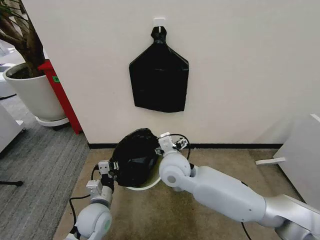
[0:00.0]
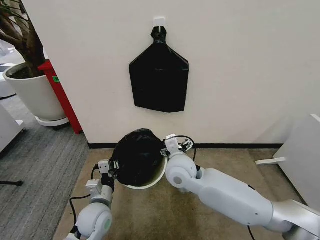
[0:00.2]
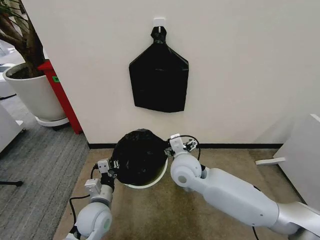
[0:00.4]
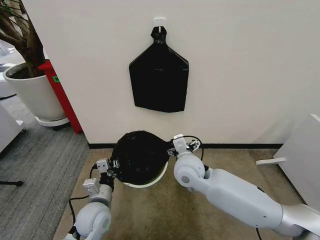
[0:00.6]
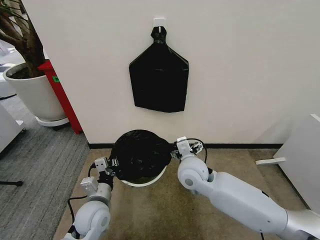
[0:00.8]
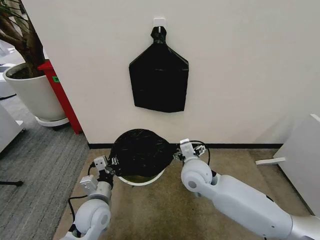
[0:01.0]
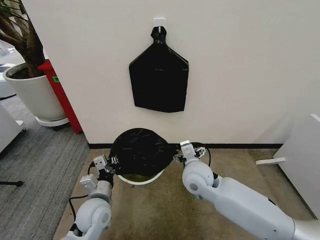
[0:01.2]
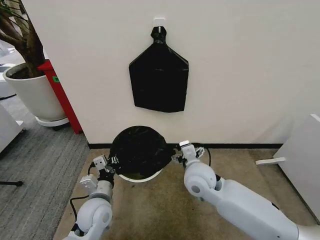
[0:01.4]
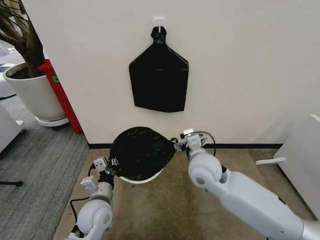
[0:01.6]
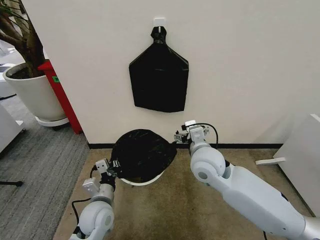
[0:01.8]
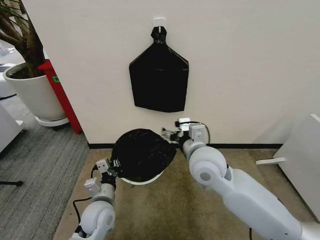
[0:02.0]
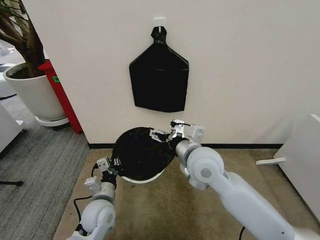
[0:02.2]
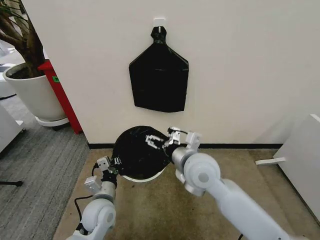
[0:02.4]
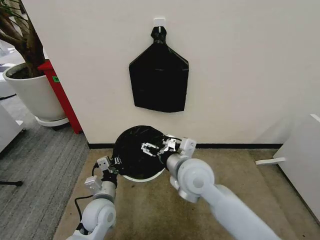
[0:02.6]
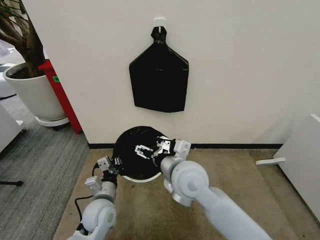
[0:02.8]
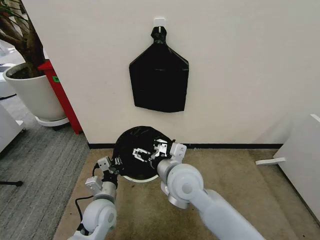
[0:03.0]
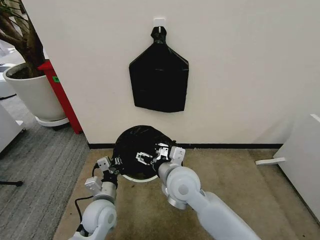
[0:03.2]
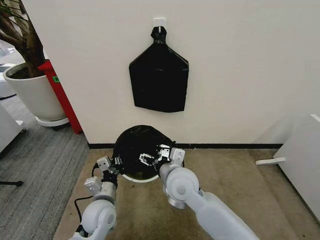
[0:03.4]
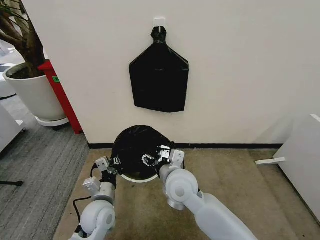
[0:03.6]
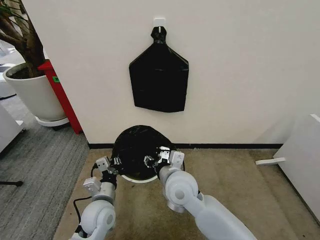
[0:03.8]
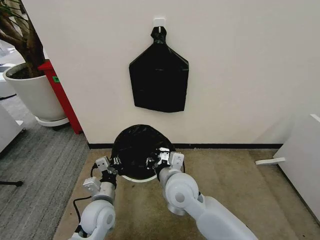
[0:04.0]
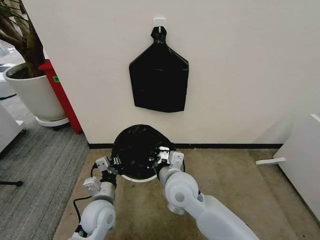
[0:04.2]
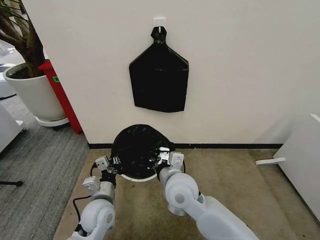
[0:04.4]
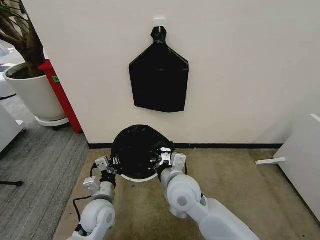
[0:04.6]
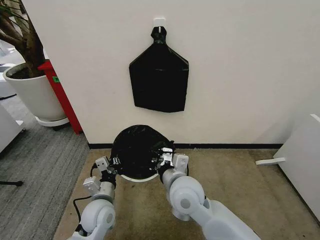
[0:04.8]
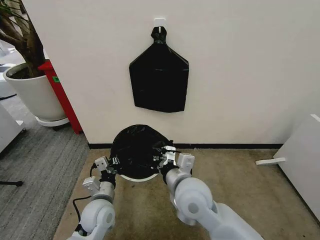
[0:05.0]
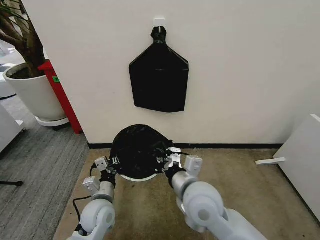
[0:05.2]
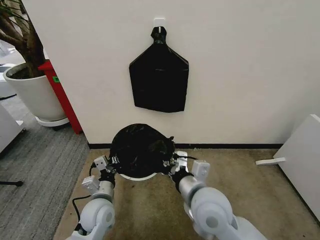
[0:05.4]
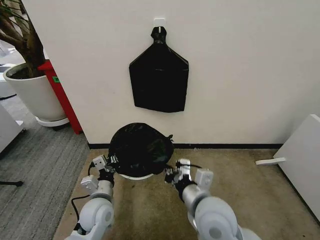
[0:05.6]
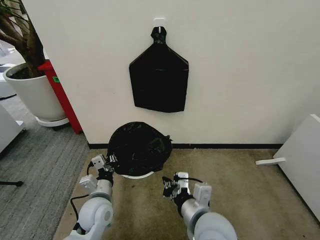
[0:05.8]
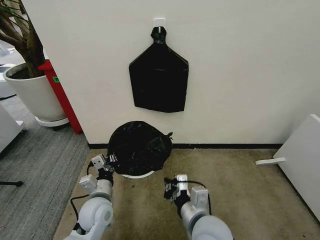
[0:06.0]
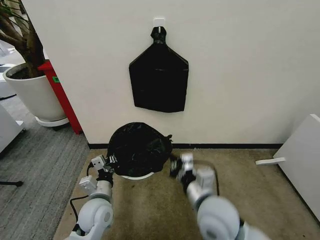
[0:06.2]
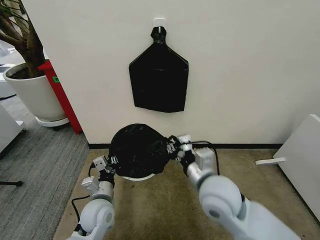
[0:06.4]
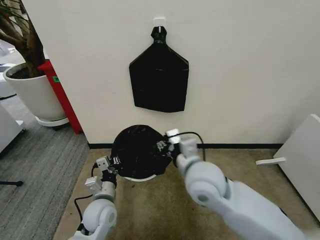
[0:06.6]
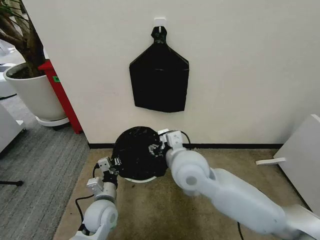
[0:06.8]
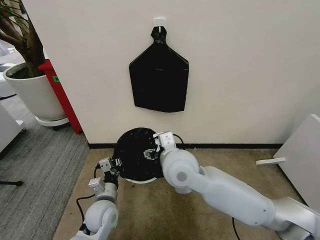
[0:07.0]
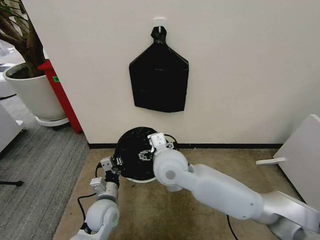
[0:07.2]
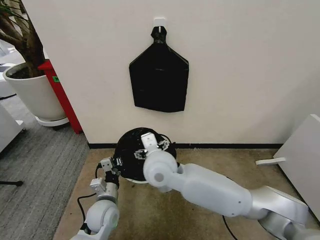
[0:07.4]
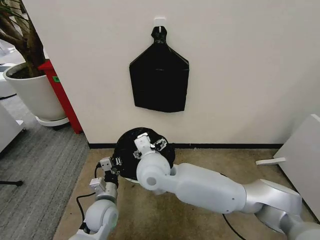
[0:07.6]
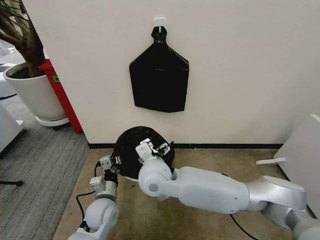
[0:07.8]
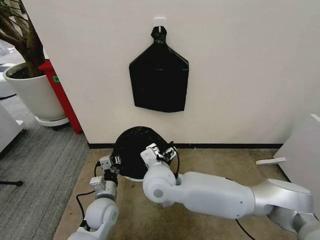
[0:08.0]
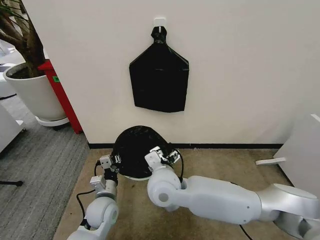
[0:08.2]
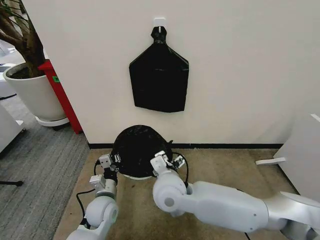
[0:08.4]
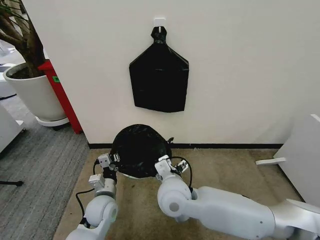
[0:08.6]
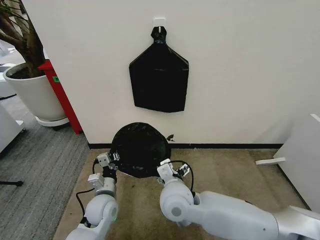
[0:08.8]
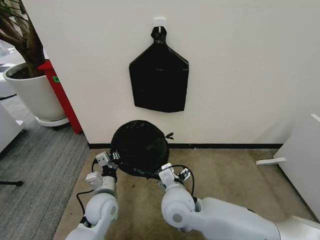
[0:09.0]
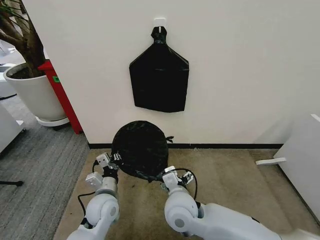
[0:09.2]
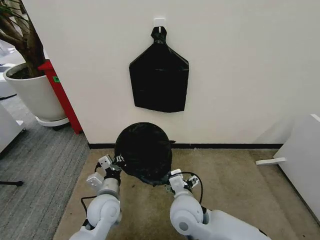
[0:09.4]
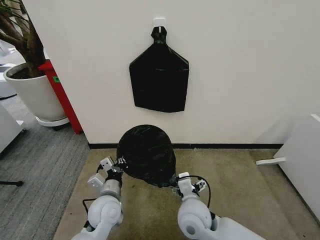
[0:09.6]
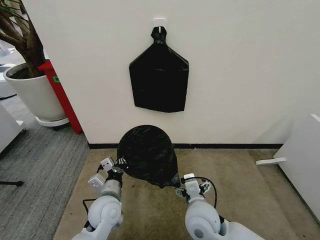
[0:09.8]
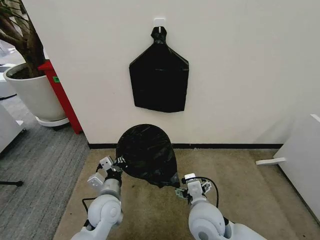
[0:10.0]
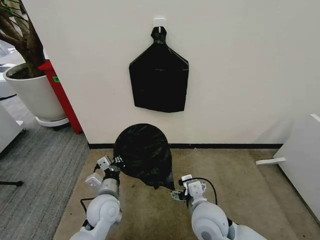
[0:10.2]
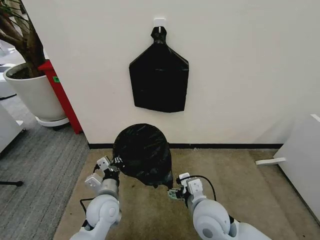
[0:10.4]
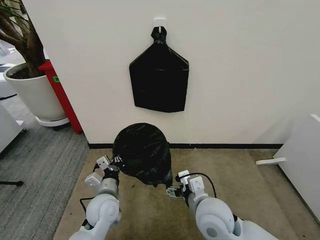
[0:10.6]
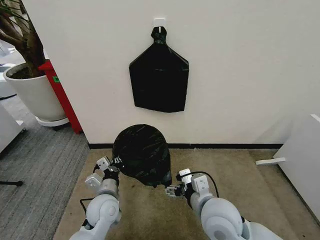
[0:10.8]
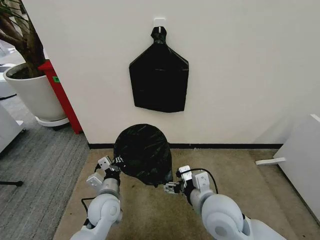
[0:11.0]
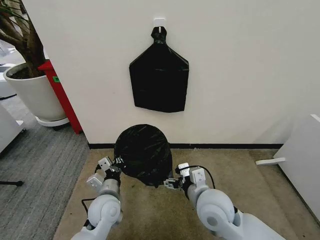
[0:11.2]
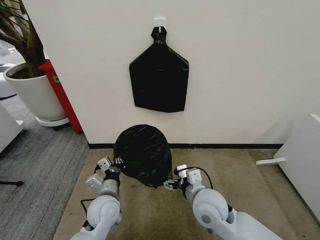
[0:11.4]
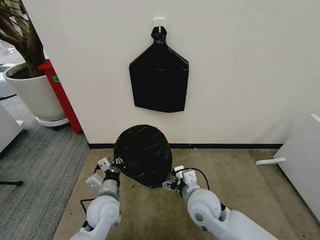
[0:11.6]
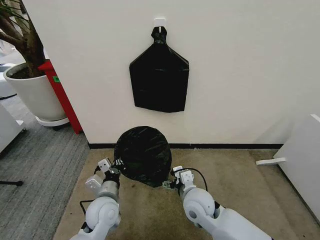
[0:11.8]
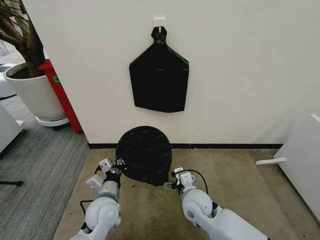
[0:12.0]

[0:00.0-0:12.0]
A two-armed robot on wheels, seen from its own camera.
Task of the whole recording: Place the garbage bag over the trash bin.
0:00.0 to 0:01.6: The right gripper heads to the right, covering about 10 cm.
0:01.6 to 0:03.0: The right gripper is displaced to the left by some 5 cm.
0:03.0 to 0:04.4: The right gripper closes up.
0:04.4 to 0:06.0: The right gripper travels backward and to the right by approximately 15 cm.
0:06.0 to 0:07.6: The right gripper is displaced forward, to the left and upward by about 20 cm, and opens.
0:07.6 to 0:09.0: The right gripper moves downward, to the right and backward, about 10 cm.
0:09.0 to 0:10.4: The right gripper goes roughly 10 cm to the right.
0:10.4 to 0:12.0: The right gripper goes about 10 cm downward and forward.

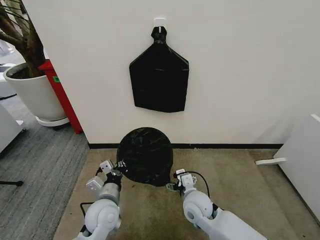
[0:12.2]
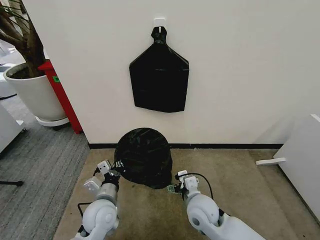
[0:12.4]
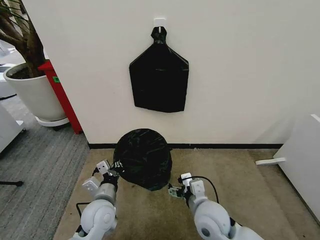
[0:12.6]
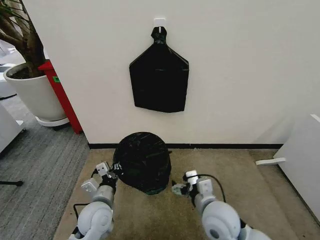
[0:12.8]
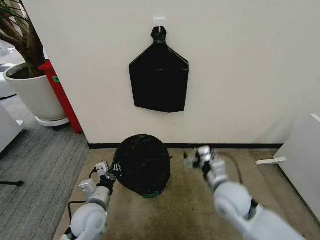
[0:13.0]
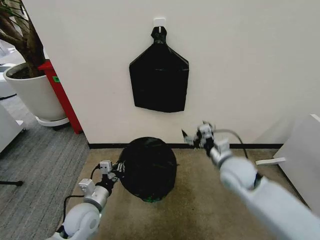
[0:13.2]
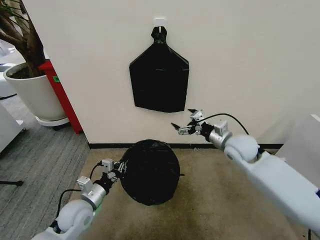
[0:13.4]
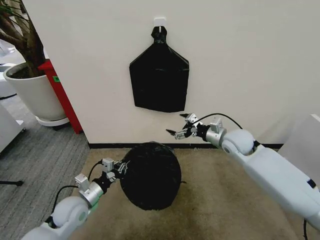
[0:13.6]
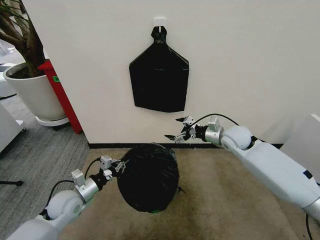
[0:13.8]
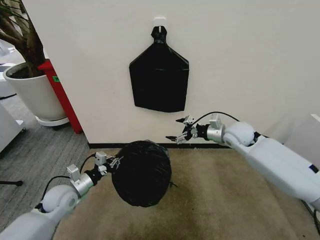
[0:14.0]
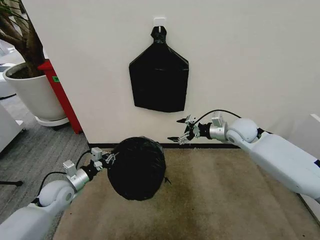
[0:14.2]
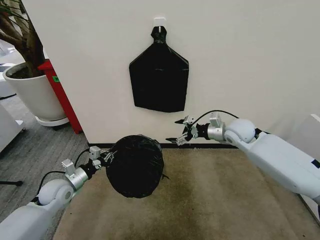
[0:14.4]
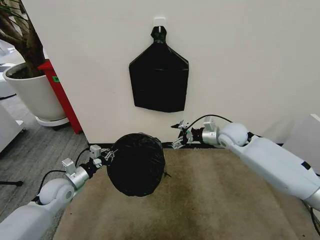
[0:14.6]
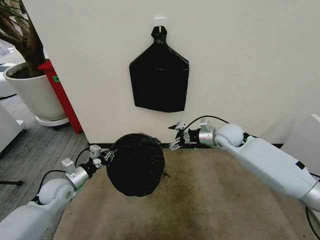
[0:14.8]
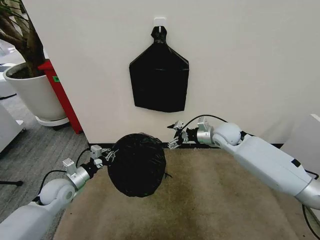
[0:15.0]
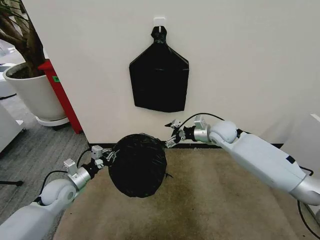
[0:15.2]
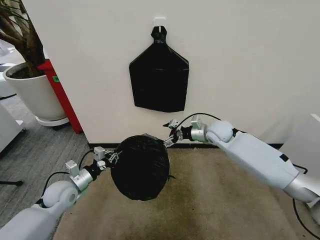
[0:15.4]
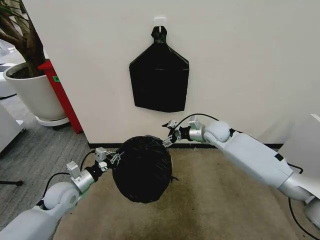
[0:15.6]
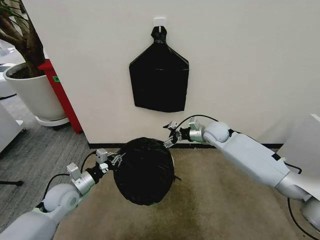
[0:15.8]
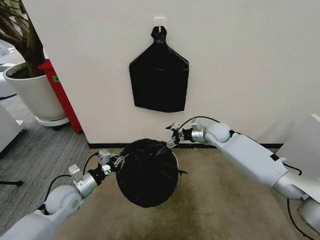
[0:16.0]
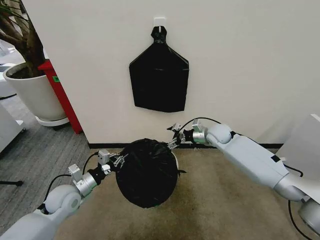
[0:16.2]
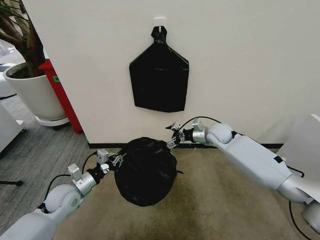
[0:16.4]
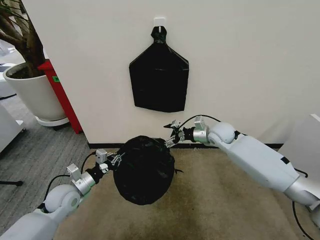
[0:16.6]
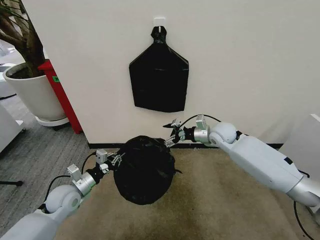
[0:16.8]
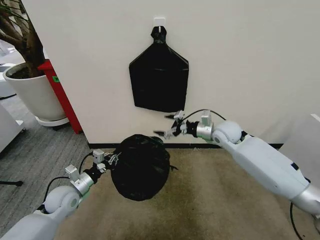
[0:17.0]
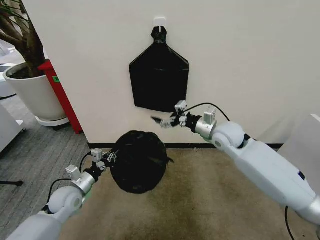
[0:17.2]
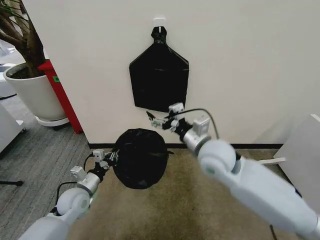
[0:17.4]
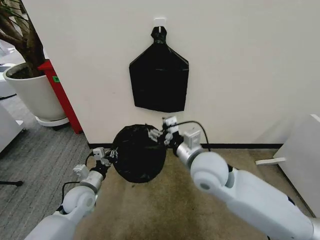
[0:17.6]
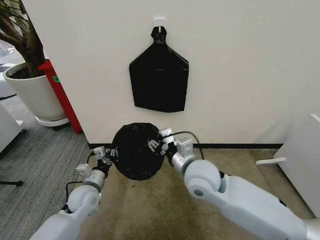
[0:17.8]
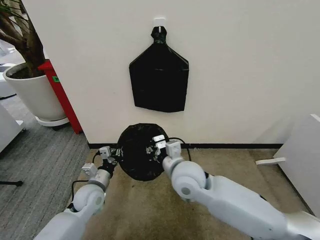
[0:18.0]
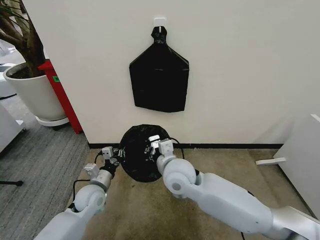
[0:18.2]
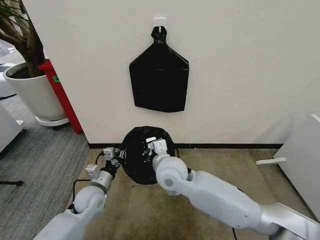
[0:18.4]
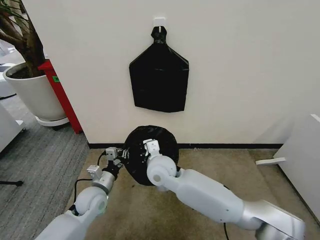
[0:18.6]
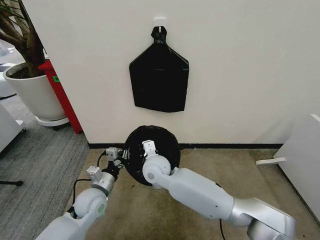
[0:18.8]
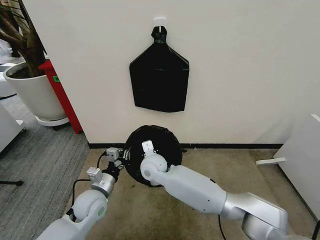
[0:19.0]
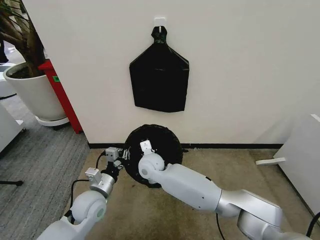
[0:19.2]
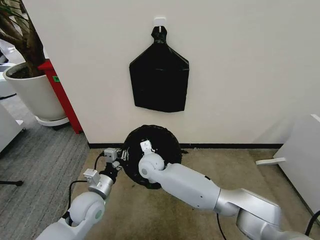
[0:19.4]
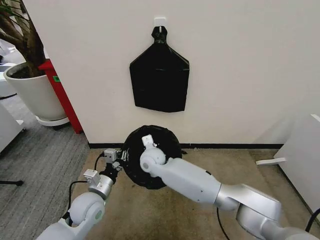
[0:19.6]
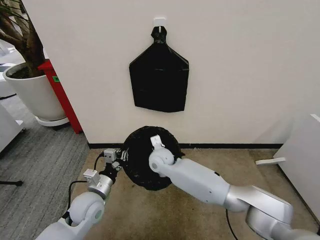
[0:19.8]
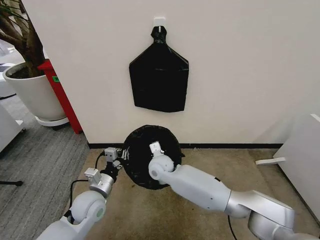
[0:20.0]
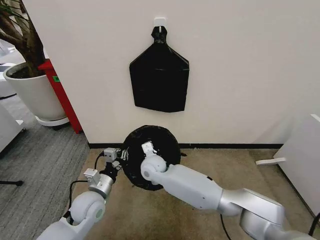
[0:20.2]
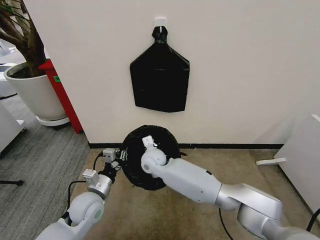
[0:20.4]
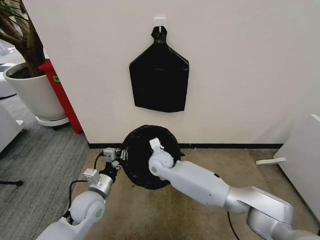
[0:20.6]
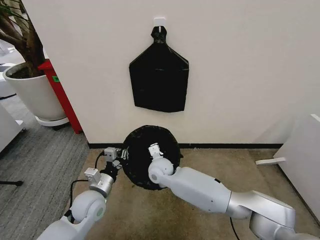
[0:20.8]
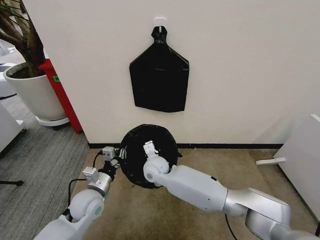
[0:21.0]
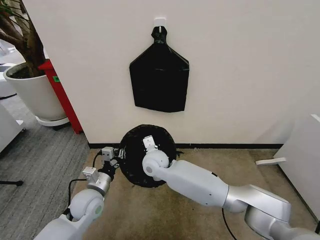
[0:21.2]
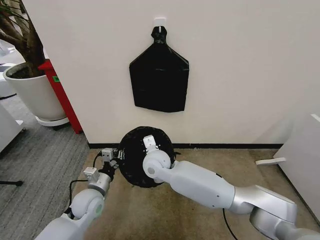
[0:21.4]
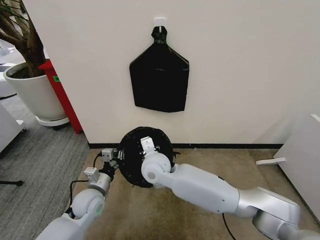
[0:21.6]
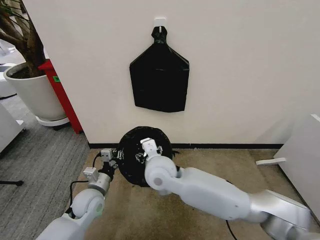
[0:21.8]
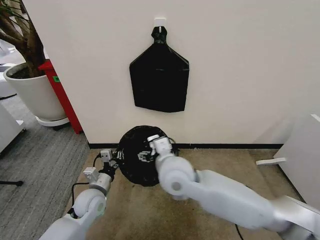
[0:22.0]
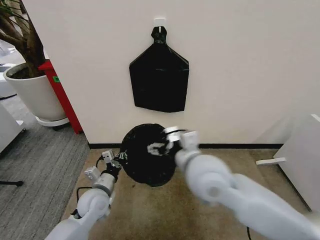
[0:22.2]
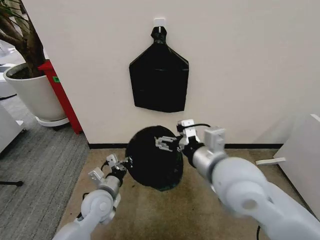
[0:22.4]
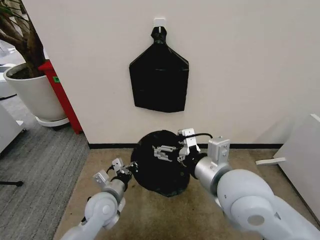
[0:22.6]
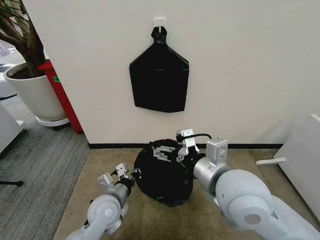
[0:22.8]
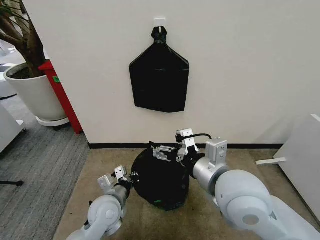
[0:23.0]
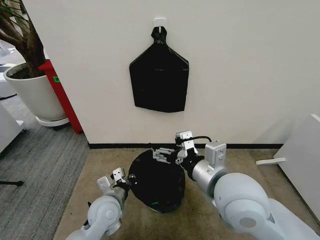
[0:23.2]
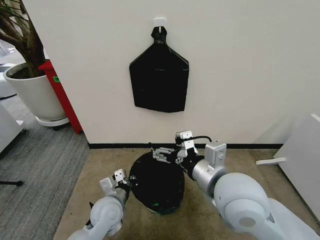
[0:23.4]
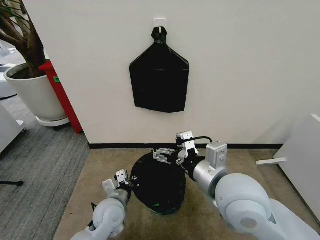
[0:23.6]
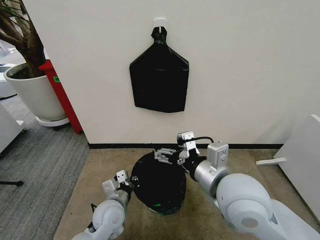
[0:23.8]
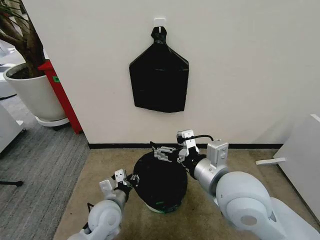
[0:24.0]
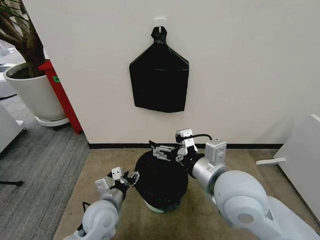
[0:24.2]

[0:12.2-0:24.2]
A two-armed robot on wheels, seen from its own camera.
Task of the whole recording: Place the garbage bag over the trash bin.
0:12.2 to 0:13.8: The right gripper moves forward, to the right and upward, roughly 30 cm. The left gripper is displaced to the left by approximately 15 cm.
0:13.8 to 0:15.2: There are only small adjustments of the grippers.
0:15.2 to 0:16.6: The grippers stay close to where they were, moving slightly.
0:16.6 to 0:18.2: The left gripper shifts about 10 cm to the right. Meanwhile the right gripper heads backward and to the left, covering some 25 cm, and closes its fingers.
0:18.2 to 0:19.8: The left gripper changes place by roughly 5 cm. Meanwhile the right gripper heads forward, downward and to the left, covering some 15 cm.
0:19.8 to 0:21.2: The grippers stay close to where they were, moving slightly.
0:21.2 to 0:22.6: The right gripper is displaced upward, backward and to the right by about 30 cm, and opens, while the left gripper is displaced to the right by about 5 cm.
0:22.6 to 0:24.2: The left gripper opens up.
